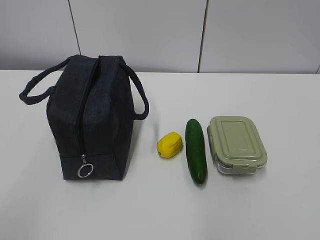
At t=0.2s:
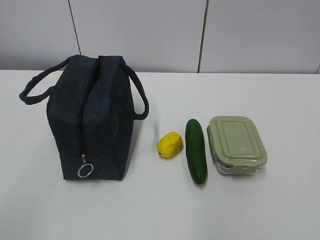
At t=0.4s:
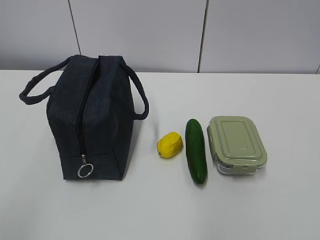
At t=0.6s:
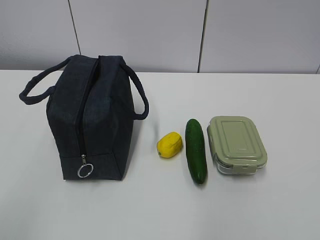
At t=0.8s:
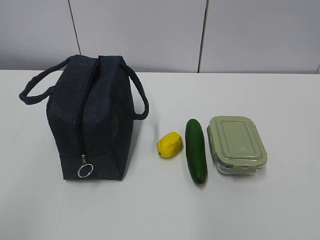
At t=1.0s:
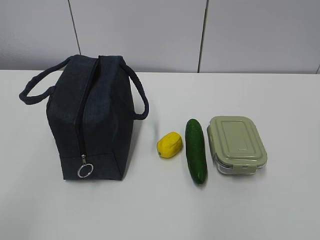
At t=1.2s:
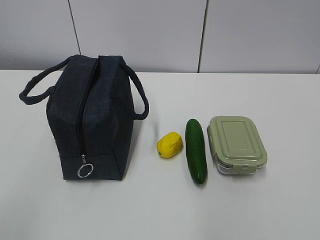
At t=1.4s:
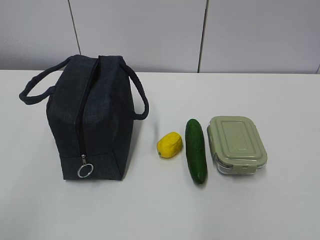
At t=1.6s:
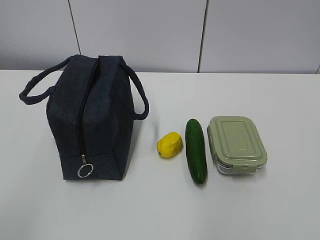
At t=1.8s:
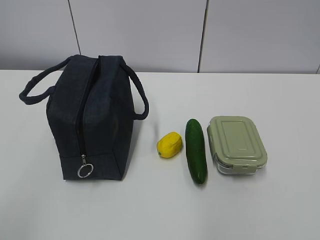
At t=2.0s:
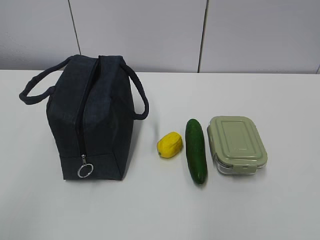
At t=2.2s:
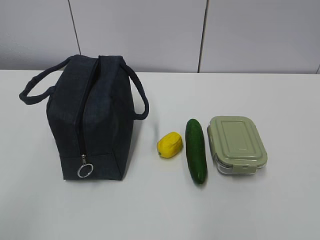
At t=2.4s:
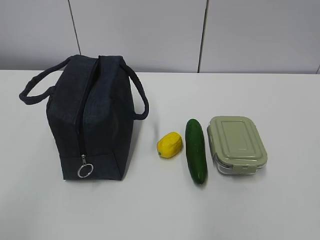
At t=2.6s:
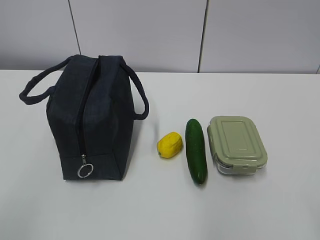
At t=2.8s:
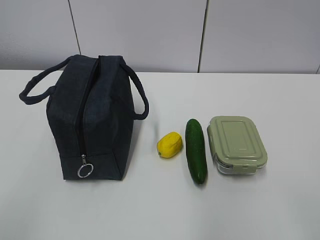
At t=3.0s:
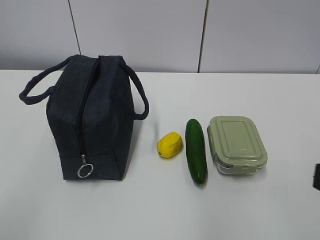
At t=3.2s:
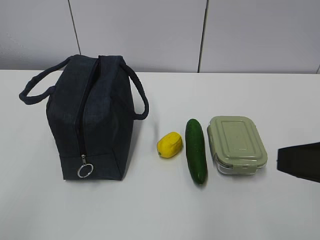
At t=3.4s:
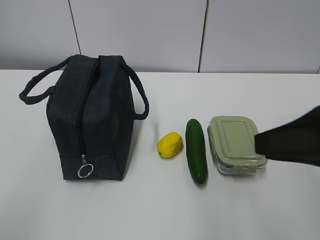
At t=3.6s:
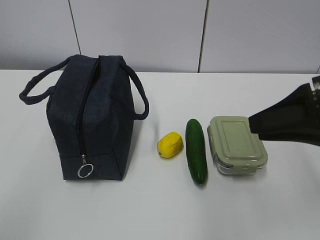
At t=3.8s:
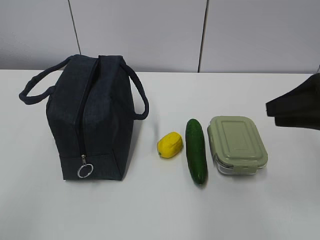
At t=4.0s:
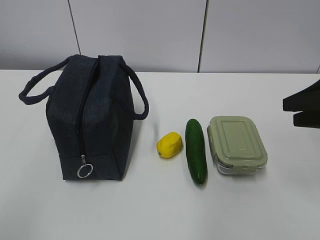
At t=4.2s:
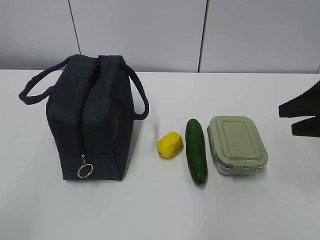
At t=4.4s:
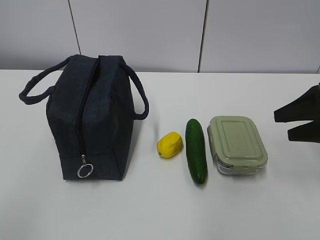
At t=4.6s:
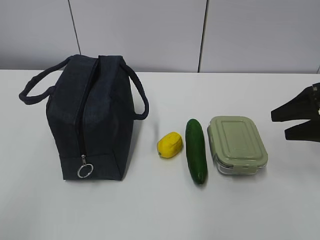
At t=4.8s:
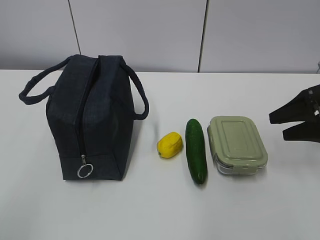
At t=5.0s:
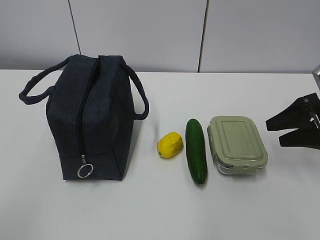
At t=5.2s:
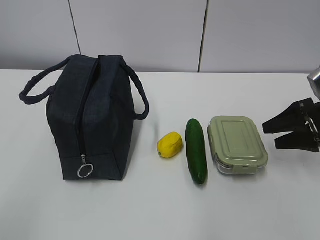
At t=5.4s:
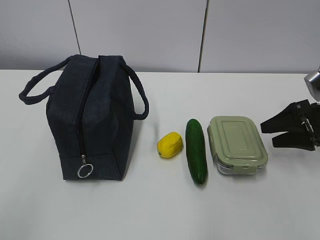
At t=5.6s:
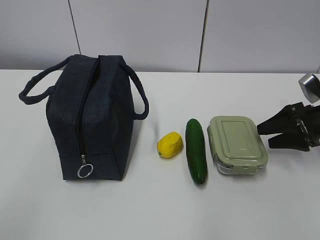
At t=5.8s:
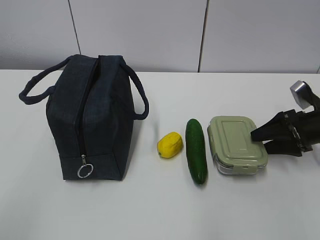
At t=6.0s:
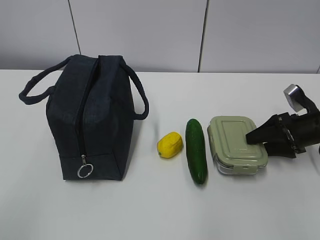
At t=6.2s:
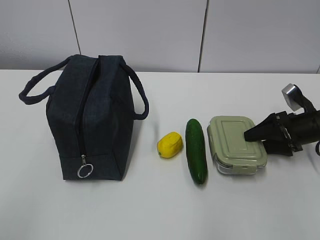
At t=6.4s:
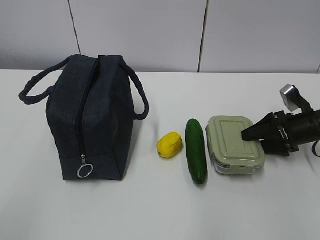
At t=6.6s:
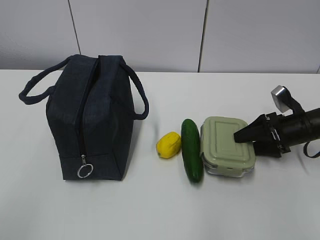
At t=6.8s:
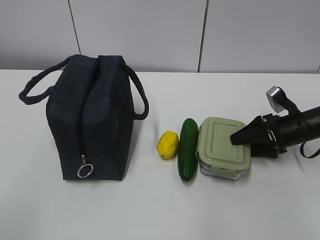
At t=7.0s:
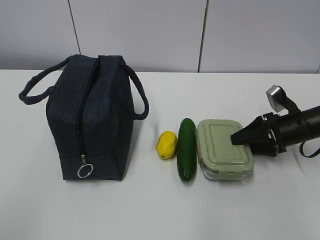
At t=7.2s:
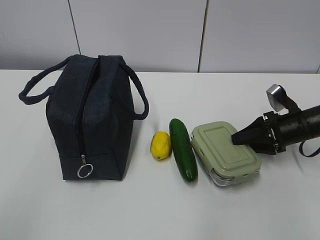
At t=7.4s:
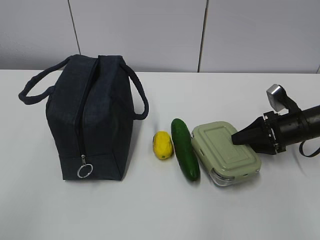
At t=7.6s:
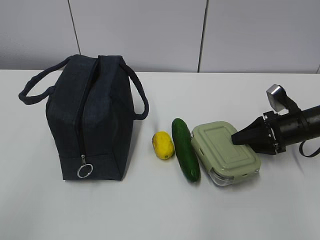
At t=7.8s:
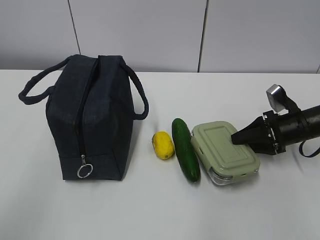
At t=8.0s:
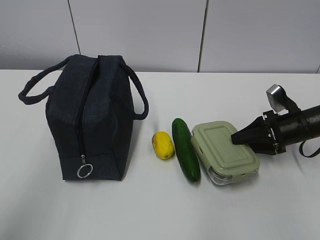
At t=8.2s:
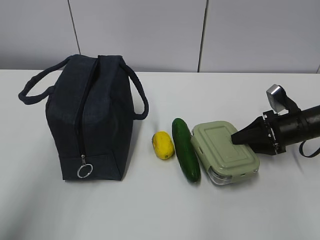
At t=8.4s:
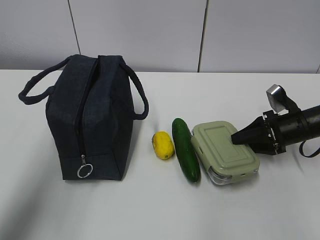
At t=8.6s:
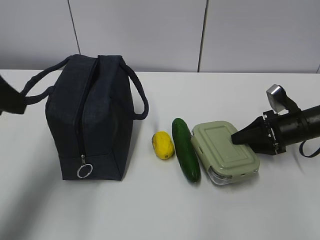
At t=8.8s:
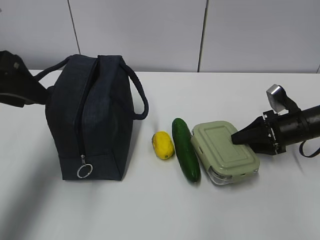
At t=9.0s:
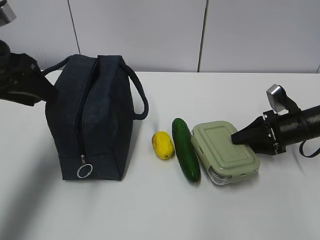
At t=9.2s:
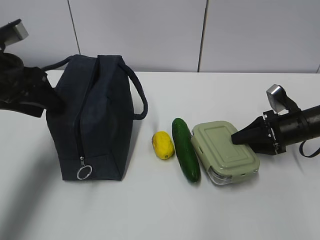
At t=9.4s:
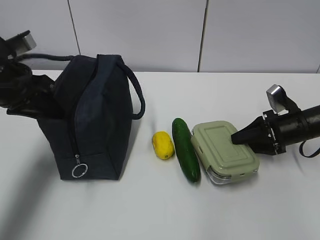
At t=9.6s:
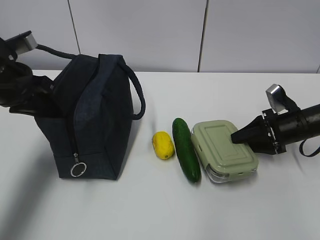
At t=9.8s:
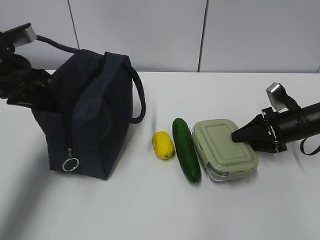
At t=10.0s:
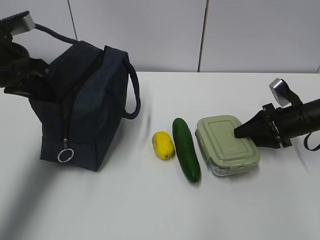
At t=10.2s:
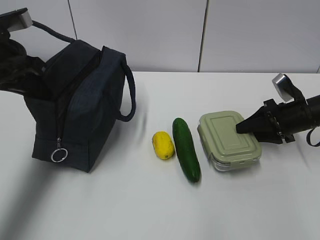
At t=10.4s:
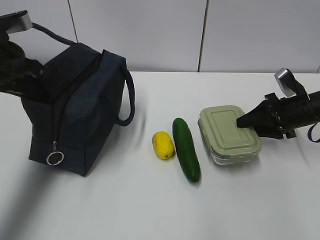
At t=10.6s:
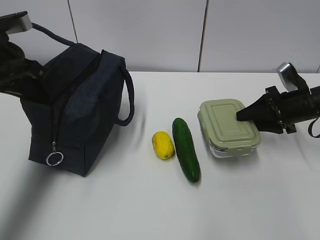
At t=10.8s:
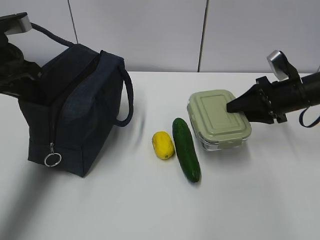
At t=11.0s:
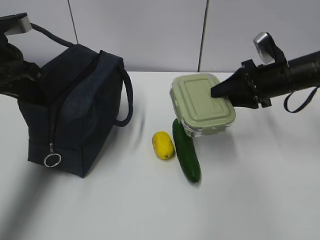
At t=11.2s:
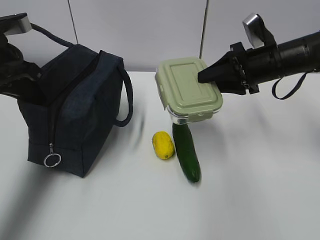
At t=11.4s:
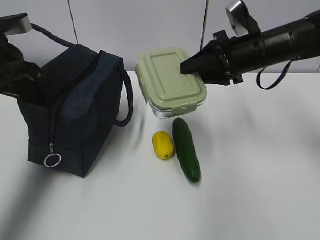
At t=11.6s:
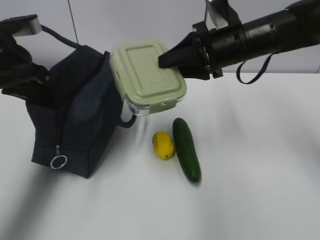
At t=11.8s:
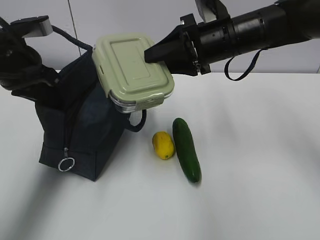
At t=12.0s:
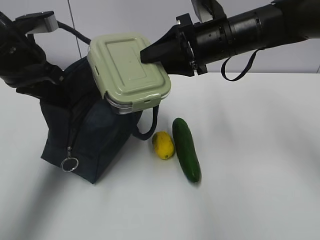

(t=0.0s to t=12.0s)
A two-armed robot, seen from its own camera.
Step, t=0.0s - t=7.2s: Grasp the box with the right gripper.
Step, t=7.4s - t=9.6s: Grasp the package with the left gripper.
t=3.0s - t=4.4s: The right gripper shifts some 25 cm forward and to the right, and opens up.
t=4.4s - t=6.0s: The right gripper travels downward and forward by approximately 15 cm.
t=6.0s - t=7.6s: The right gripper closes.
t=7.6s - t=9.0s: The left gripper heads forward, covering approximately 30 cm, and opens up.
t=9.0s - t=10.4s: The left gripper closes its fingers.
t=10.4s - t=12.0s: The right gripper goes some 25 cm to the left and upward.

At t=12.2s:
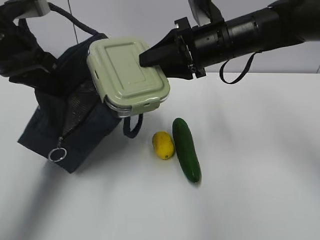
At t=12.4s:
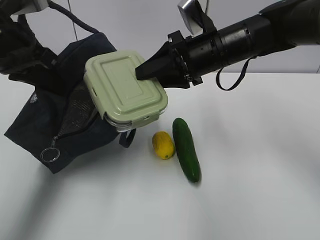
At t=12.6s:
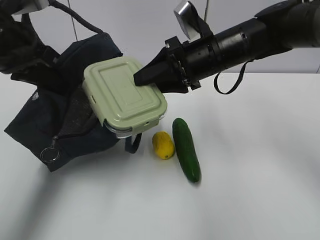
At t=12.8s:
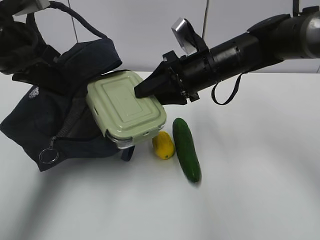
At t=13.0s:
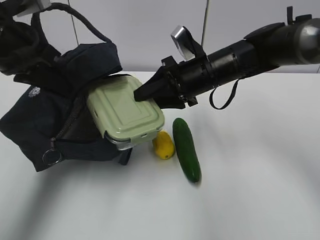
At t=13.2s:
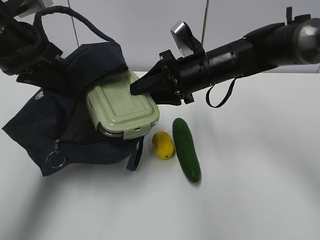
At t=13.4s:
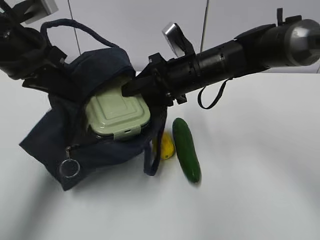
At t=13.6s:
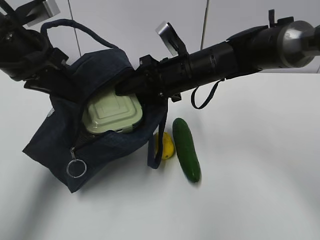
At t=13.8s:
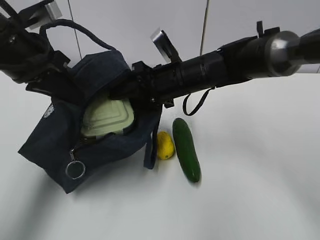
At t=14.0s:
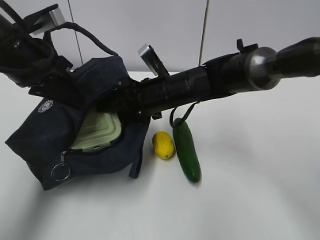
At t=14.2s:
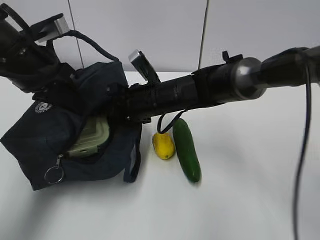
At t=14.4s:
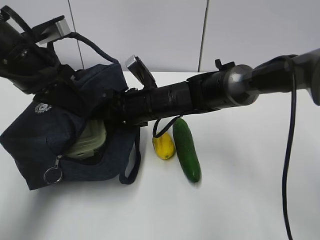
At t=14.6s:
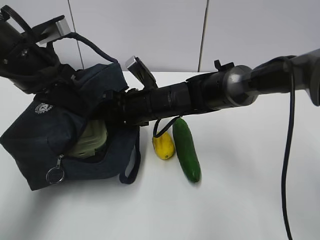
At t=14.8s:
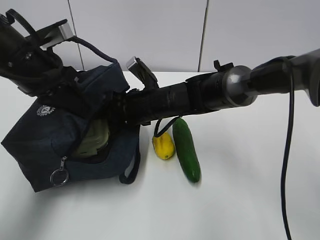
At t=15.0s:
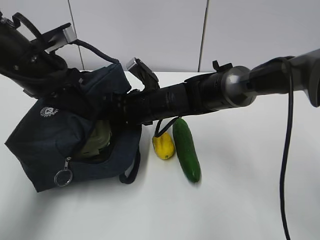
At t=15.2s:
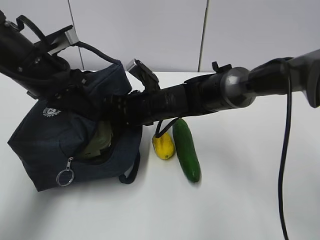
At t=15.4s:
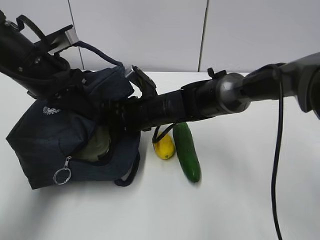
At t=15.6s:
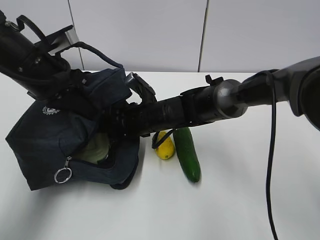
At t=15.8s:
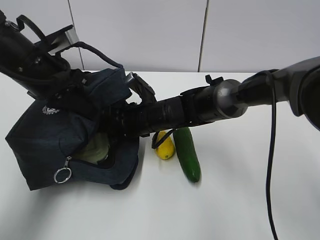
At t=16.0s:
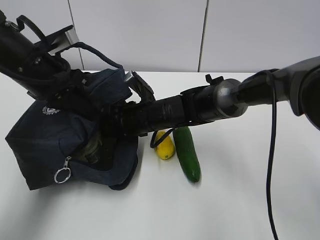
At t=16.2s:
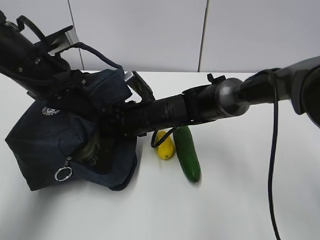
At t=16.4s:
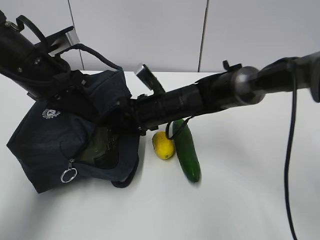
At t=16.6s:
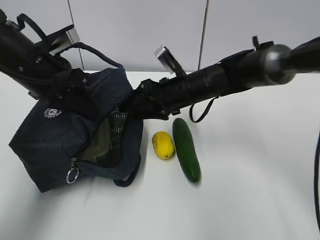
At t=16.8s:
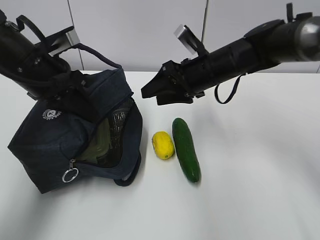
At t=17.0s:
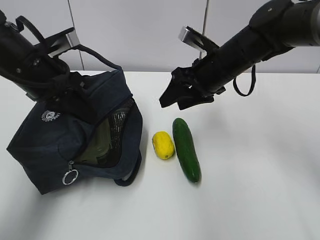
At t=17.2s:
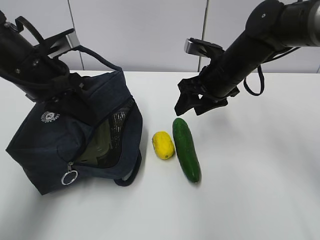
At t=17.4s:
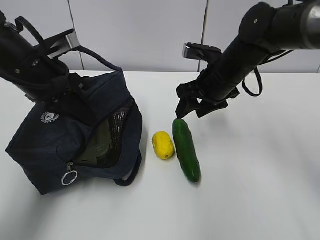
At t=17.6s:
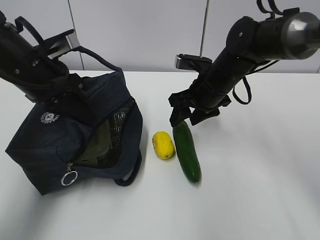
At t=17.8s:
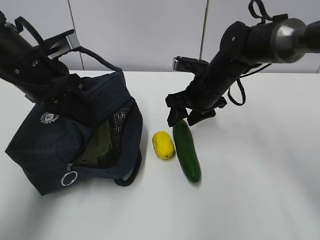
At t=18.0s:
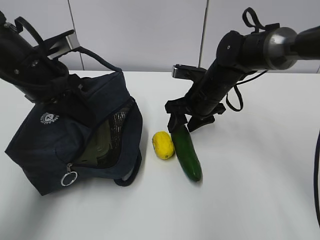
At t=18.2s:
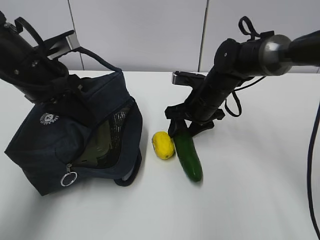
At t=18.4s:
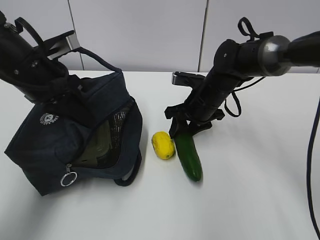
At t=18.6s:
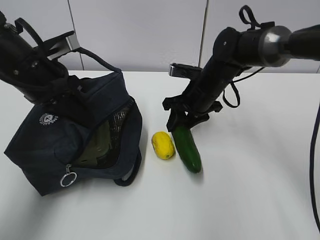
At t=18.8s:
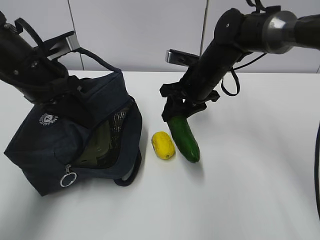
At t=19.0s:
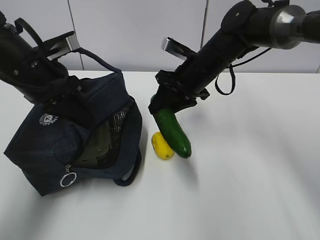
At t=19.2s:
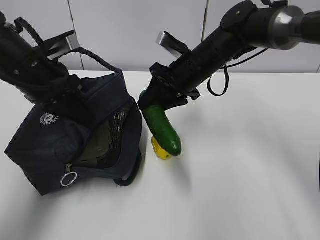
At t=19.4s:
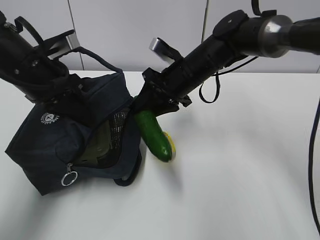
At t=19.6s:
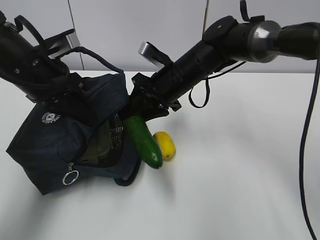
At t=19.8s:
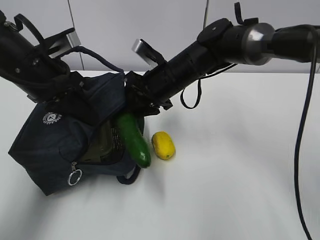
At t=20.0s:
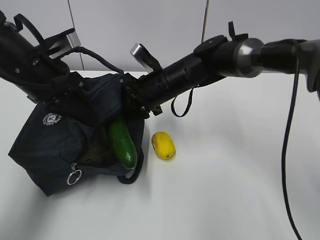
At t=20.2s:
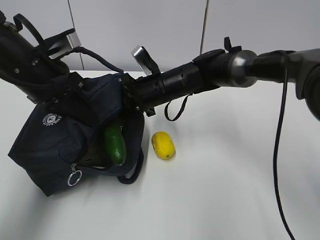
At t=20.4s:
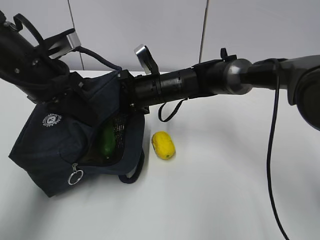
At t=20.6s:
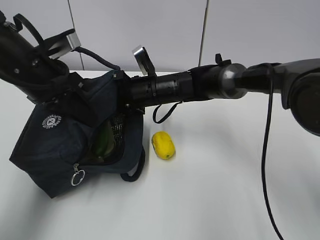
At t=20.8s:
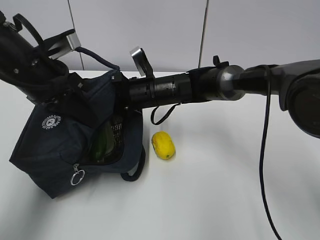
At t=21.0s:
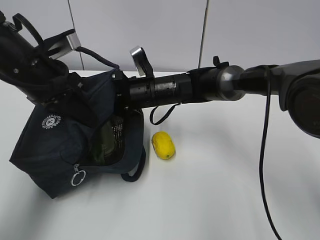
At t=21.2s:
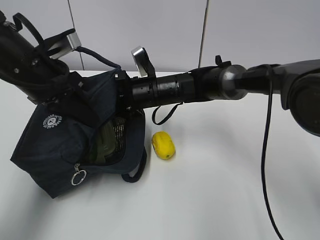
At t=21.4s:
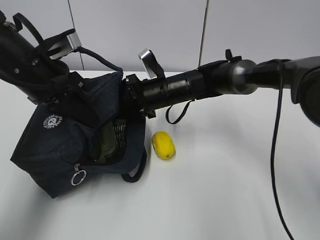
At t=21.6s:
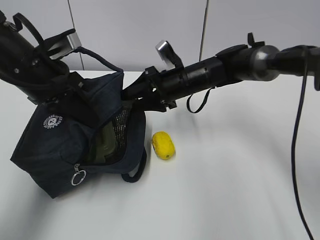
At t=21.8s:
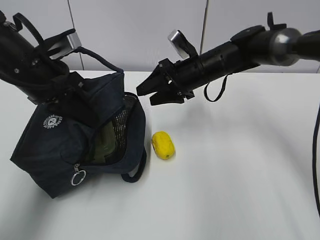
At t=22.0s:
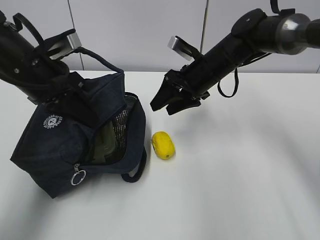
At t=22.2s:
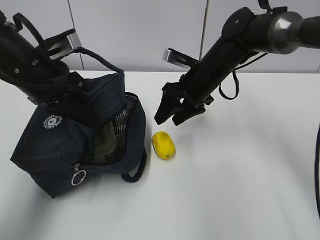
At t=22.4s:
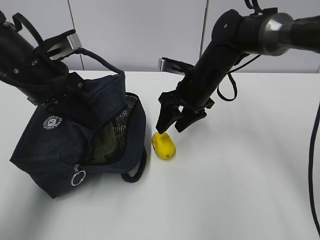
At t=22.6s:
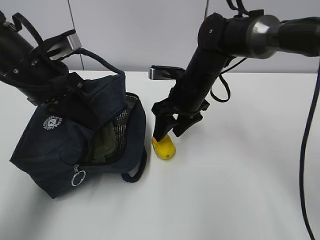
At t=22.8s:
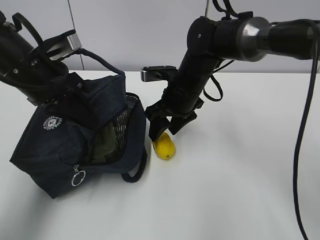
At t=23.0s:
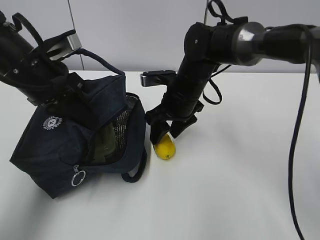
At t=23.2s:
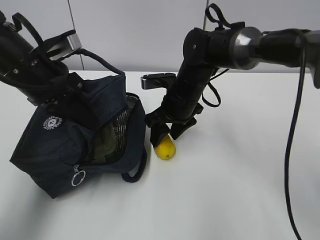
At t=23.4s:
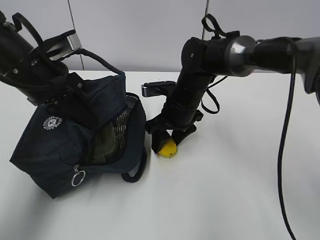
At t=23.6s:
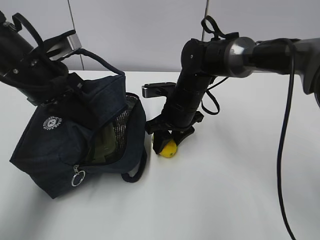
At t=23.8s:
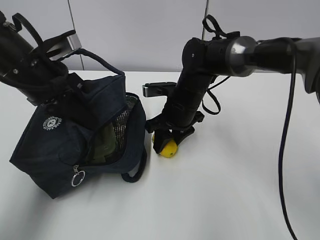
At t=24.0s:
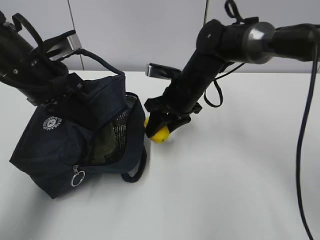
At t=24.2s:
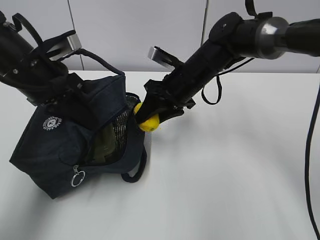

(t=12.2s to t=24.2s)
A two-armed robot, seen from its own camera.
Step, t=12.2s - t=16.4s: Place the box into the package with the right gripper.
Step, t=16.6s - t=18.2s: Grasp the cucumber with the right gripper.
Step, t=18.6s - t=21.6s: Place the cucumber into the package with the right gripper.
Step, t=21.8s - t=23.6s: Grasp the lemon with the right gripper.
t=12.2s - t=13.8s: The right gripper moves downward and to the left, about 10 cm.
t=13.8s - t=15.2s: The right gripper moves downward and to the left, roughly 10 cm.
t=15.2s - t=16.6s: The right gripper is displaced to the right by some 5 cm.
t=16.6s - t=18.2s: The right gripper ends up roughly 5 cm from where it was.
t=18.2s - t=19.8s: The right gripper is displaced to the left and upward by roughly 10 cm.
t=19.8s - t=21.2s: The right gripper moves roughly 5 cm, and opens up.
t=21.2s - t=22.6s: The right gripper is displaced to the right by about 5 cm.
